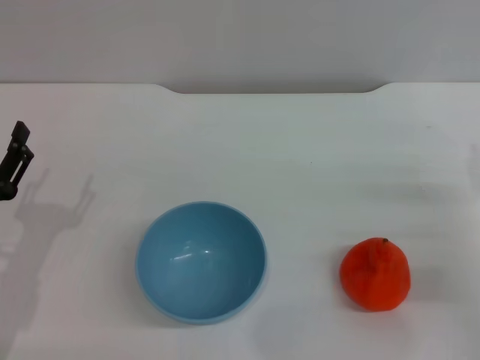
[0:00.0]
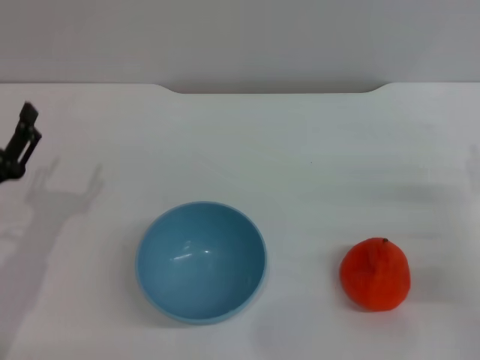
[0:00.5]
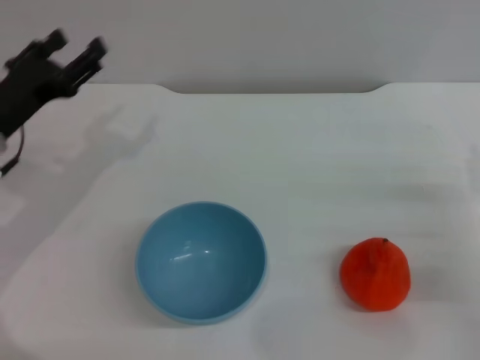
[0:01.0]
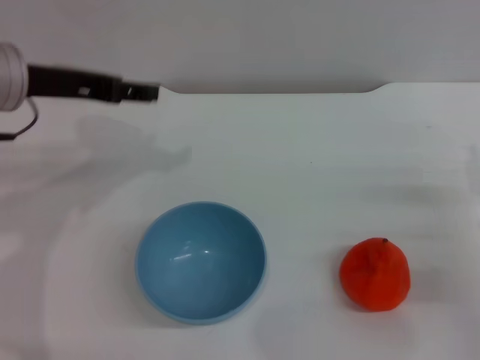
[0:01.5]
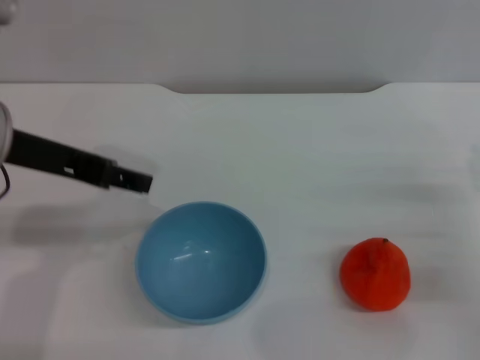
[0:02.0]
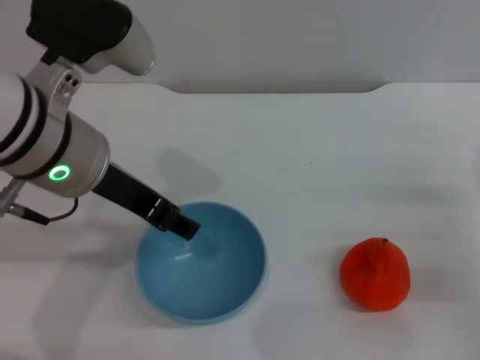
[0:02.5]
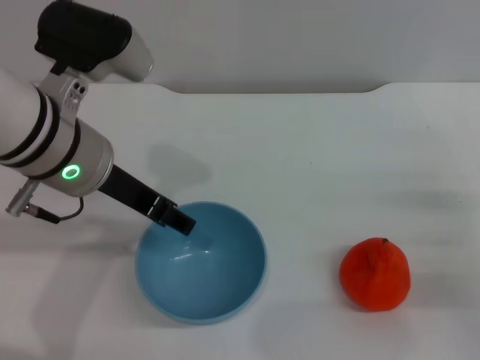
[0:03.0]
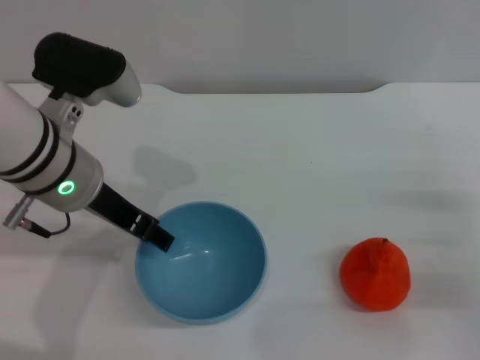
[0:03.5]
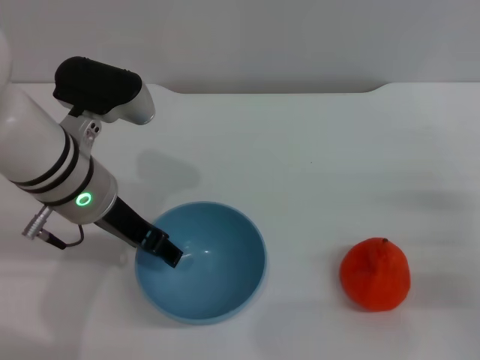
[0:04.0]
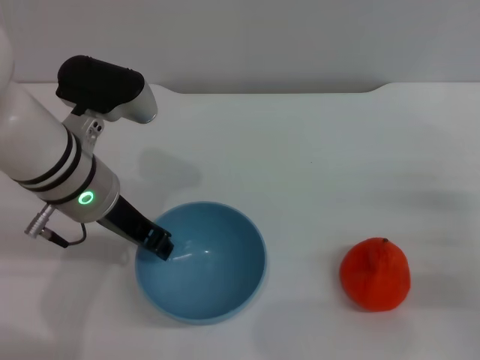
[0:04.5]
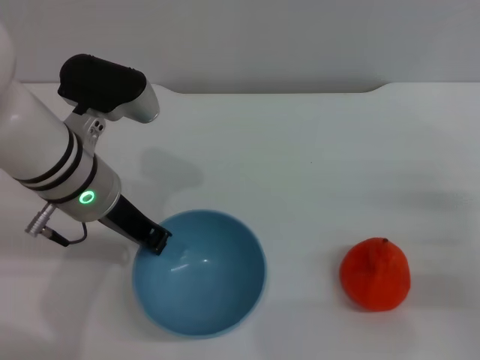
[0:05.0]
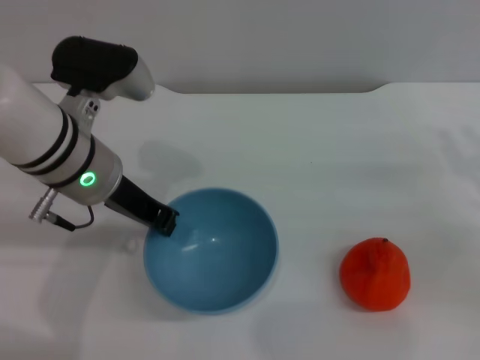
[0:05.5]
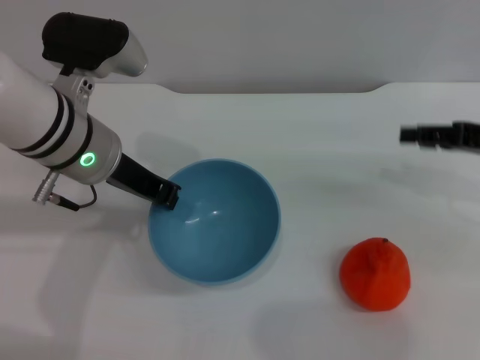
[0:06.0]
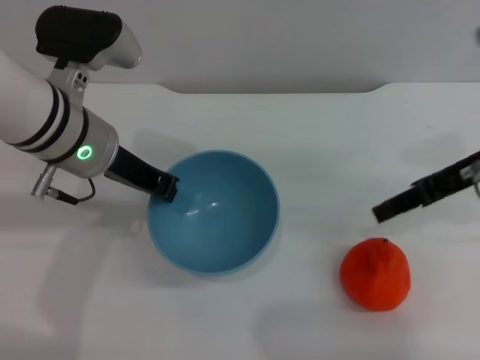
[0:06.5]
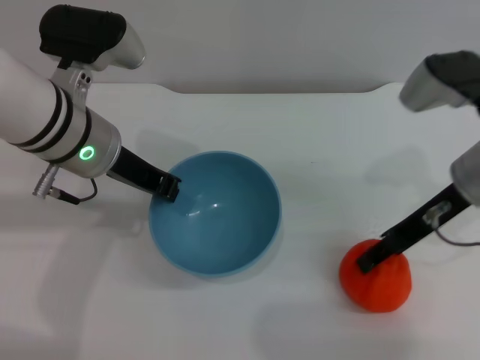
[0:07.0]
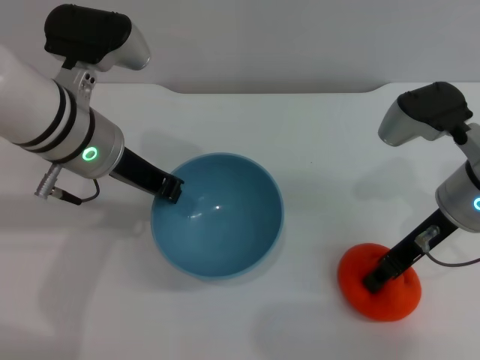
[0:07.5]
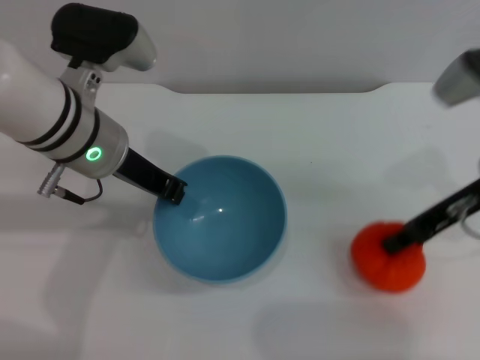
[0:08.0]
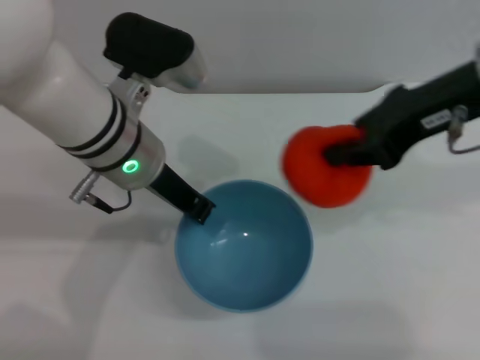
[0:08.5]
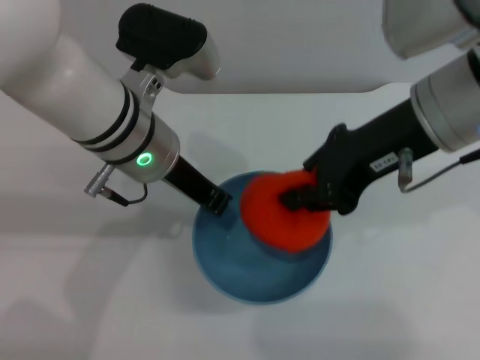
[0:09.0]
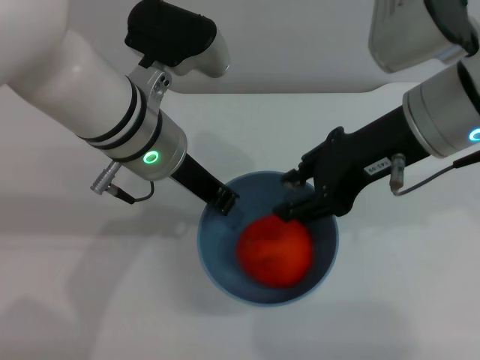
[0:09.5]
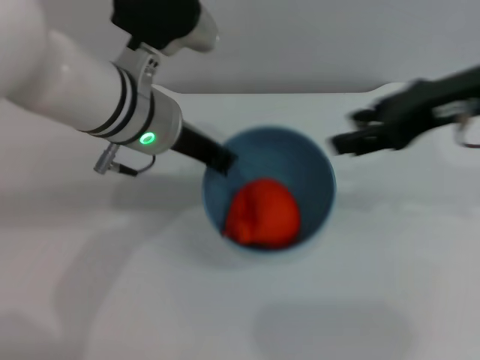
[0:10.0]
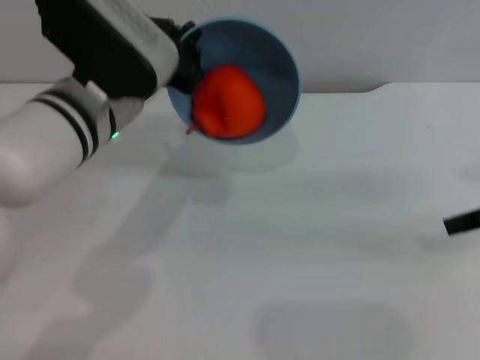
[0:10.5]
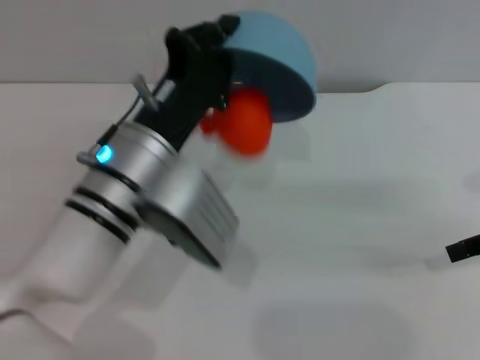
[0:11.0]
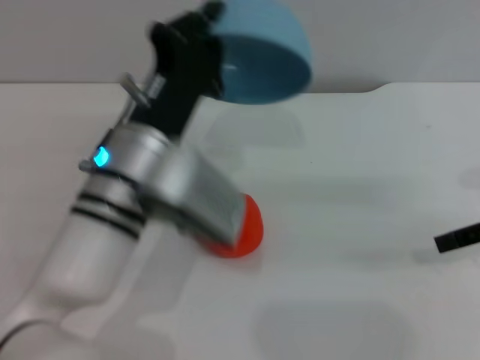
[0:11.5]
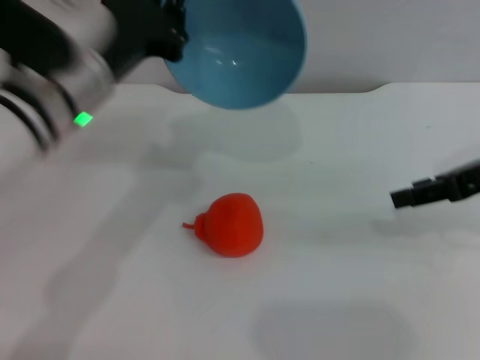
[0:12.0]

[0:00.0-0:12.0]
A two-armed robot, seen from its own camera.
Task of the whole recording: put the orange into the blue bowl and pour it out repeatedly.
Step, 0:00.0 to 0:06.0: Pick up the bowl with the left gripper.
Step, 0:06.5 to 0:08.0: Pick up the orange with the right gripper.
Step, 0:08.5 to 0:09.5: Place the orange into the bowl.
Step, 0:10.0 to 0:11.0: Pour the orange out of the bowl.
0:00.0 to 0:02.0: The left gripper goes about 20 cm upward and to the right.
0:02.0 to 0:04.0: The left gripper goes about 10 cm downward and to the right.
0:04.0 to 0:06.0: The right gripper goes about 15 cm upward and forward, while the left gripper closes.
0:06.0 to 0:08.0: The right gripper heads to the left, covering some 10 cm, and closes up.
0:08.0 to 0:10.0: The right gripper shifts approximately 10 cm upward, and opens.
0:10.0 to 0:12.0: The right gripper heads downward and to the right, covering some 10 cm.

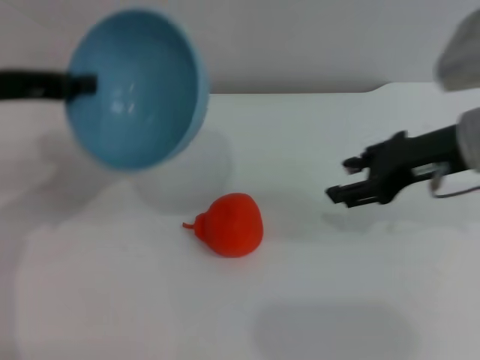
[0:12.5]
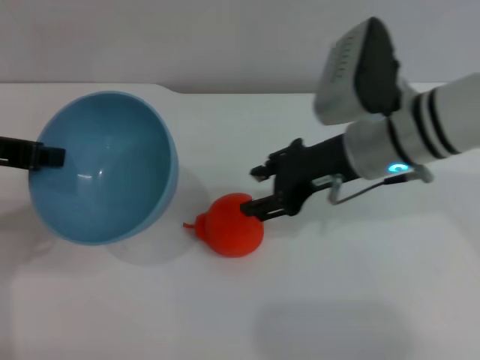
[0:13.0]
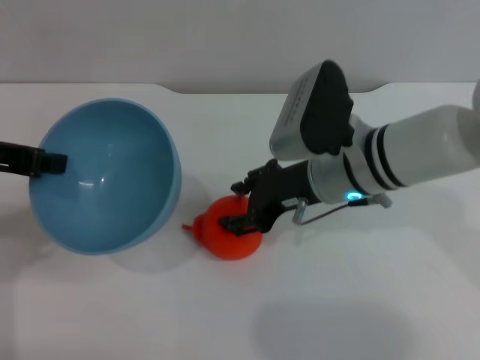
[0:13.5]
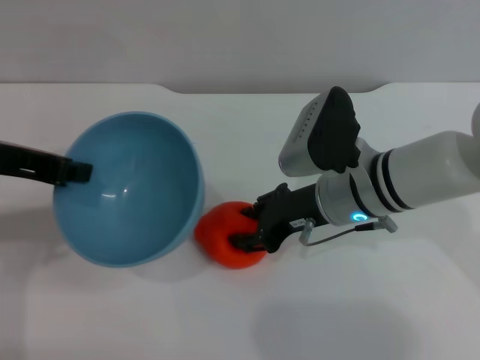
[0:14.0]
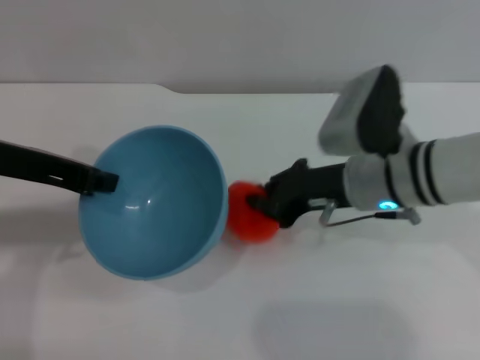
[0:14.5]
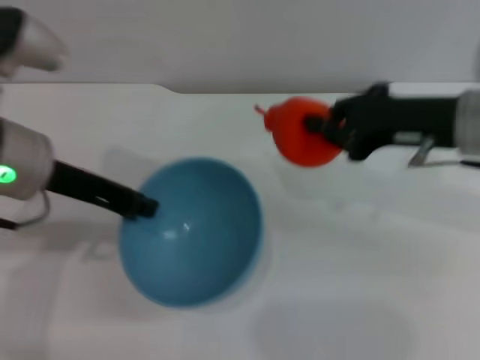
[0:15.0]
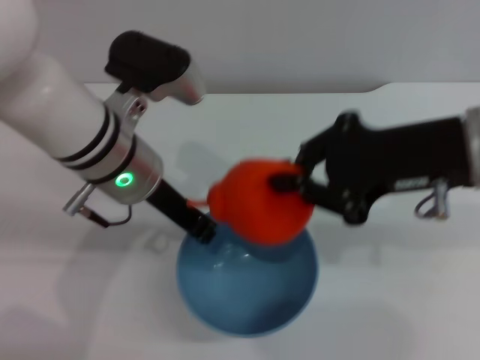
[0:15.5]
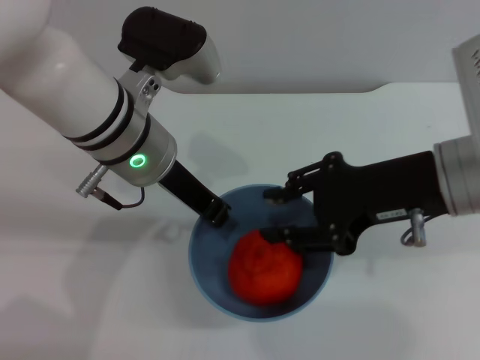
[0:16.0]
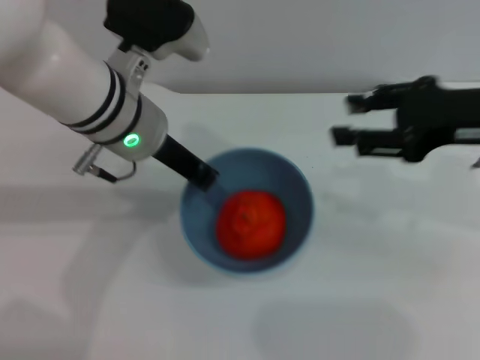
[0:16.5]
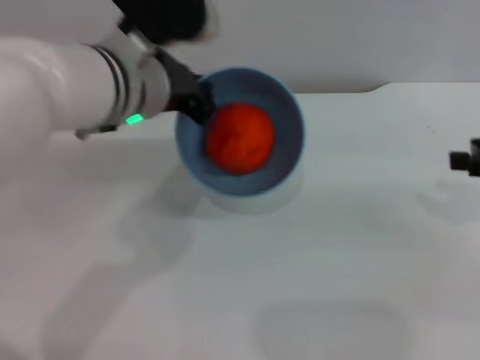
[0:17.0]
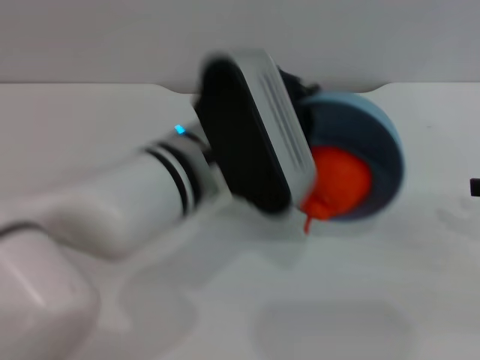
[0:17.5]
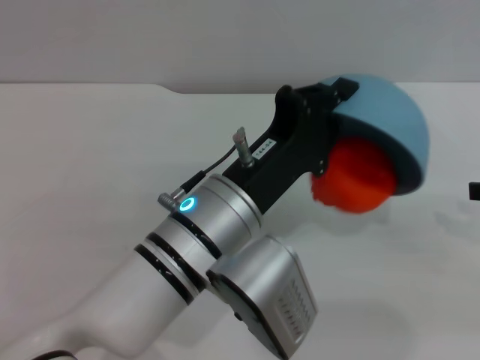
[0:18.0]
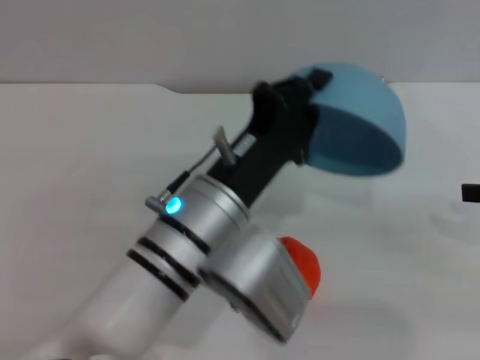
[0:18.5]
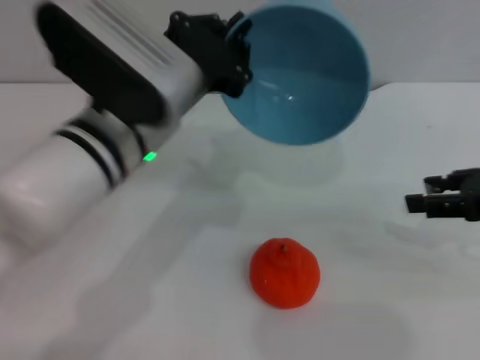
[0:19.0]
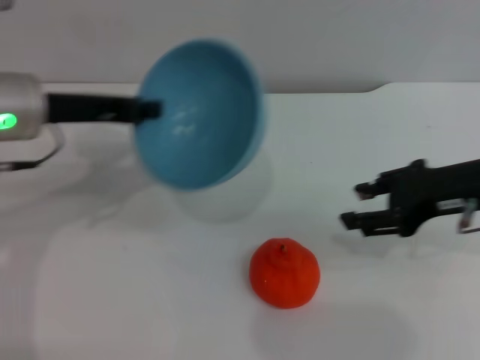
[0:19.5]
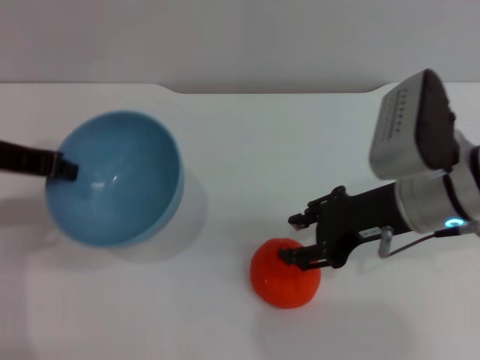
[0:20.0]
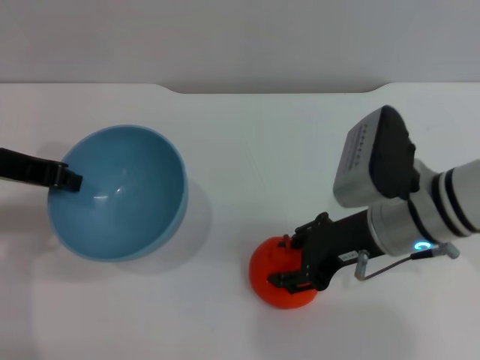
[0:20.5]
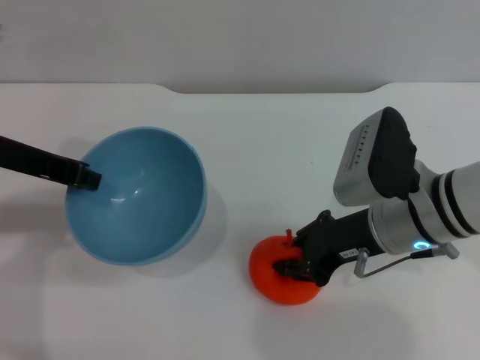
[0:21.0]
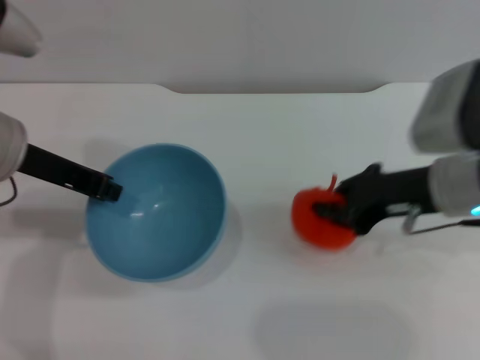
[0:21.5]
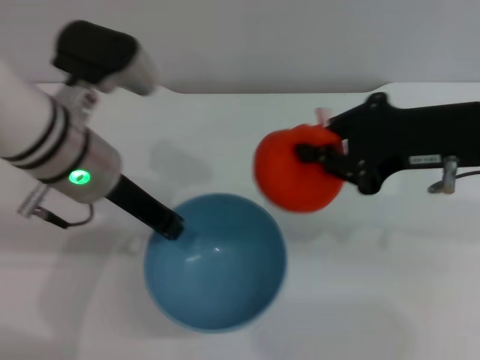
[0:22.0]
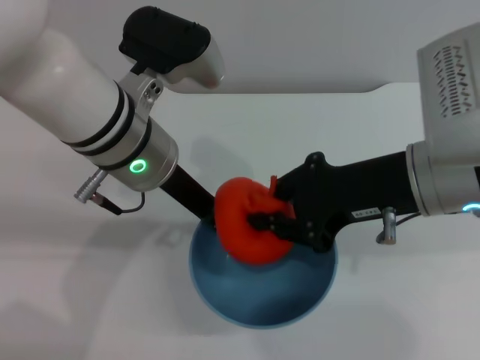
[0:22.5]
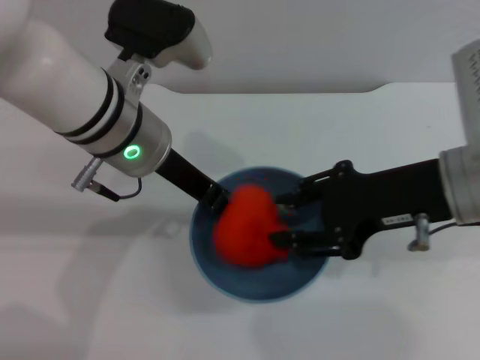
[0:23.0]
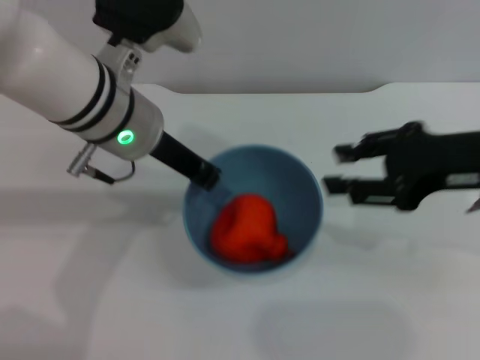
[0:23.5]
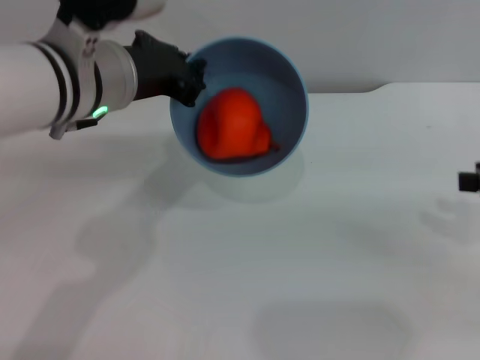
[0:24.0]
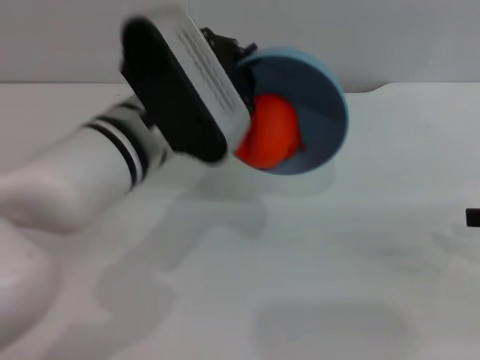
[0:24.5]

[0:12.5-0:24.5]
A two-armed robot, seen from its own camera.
Task of the whole recording: put the orange into the blue bowl and pour it out repeatedly.
Step, 0:12.5 to 0:14.5: Pick up the orange with the right gripper.
Step, 0:15.0 to 0:16.0: Place the orange into the bowl.
Step, 0:16.5 to 0:18.0: Pour the orange out of the bowl.
Step, 0:18.5 to 0:21.5: Pick up the orange with the right gripper.
Step, 0:22.0 to 0:23.0: Place the orange into the bowl.
0:12.5 to 0:14.5: The right gripper travels to the left and downward by about 10 cm, and closes its fingers.
0:14.5 to 0:16.5: The left gripper travels to the right and forward by approximately 15 cm, while the right gripper is displaced to the right and upward by some 15 cm, and opens up.
0:16.5 to 0:18.5: The right gripper is displaced to the right by some 10 cm. The left gripper is displaced backward, downward and to the right by roughly 15 cm.
0:18.5 to 0:20.5: Both grippers move to the left, about 20 cm.
0:20.5 to 0:22.5: The right gripper shifts some 10 cm upward, and closes its fingers. Meanwhile the left gripper travels to the right by about 15 cm.
0:22.5 to 0:24.5: The right gripper travels to the right by some 20 cm, and opens up.

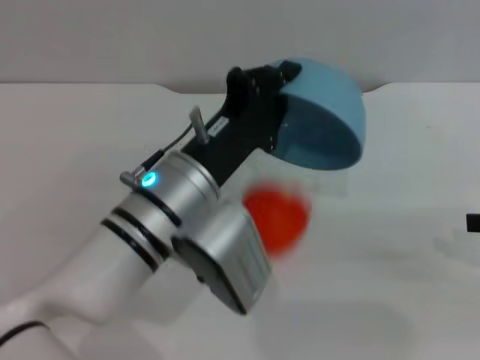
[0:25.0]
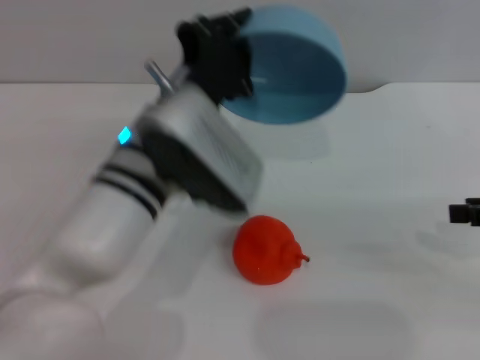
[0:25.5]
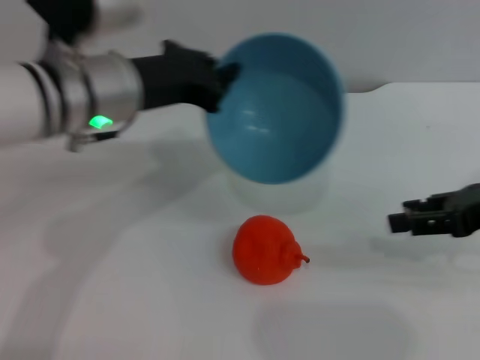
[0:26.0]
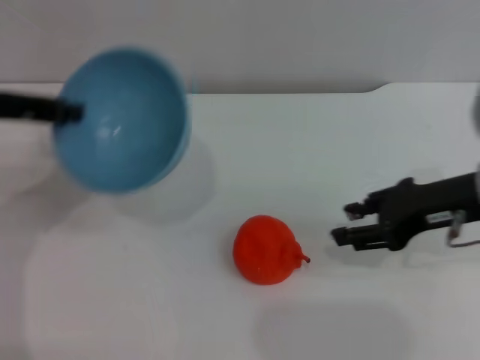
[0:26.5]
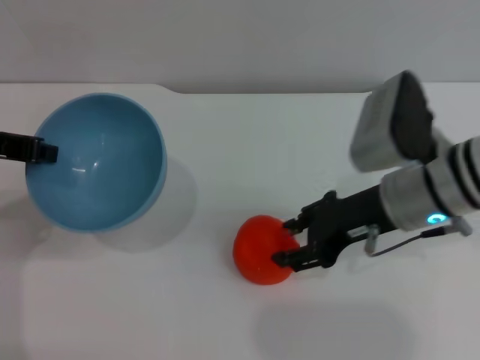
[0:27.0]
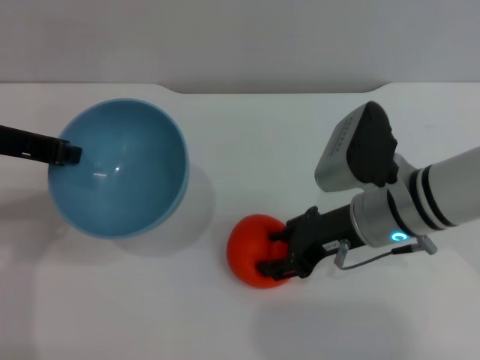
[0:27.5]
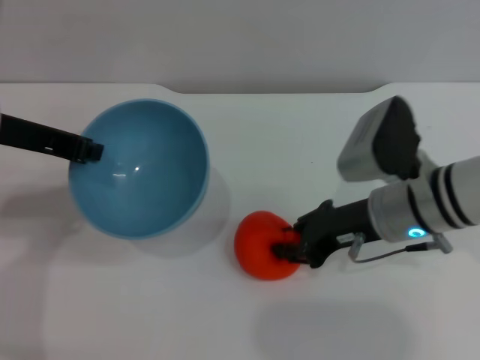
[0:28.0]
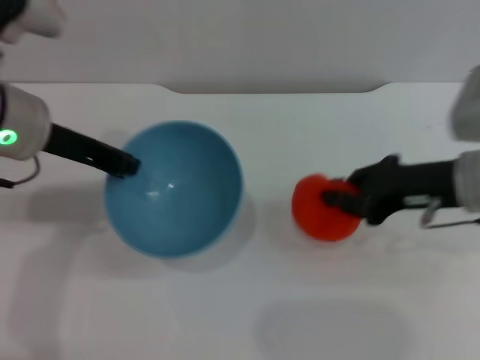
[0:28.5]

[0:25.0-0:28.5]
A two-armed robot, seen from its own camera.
Task of the whole recording: put the orange into the blue bowl and pour it out repeatedly.
0:25.0 to 0:27.0: The right gripper is displaced to the left by roughly 20 cm; the left gripper is displaced to the left and upward by roughly 25 cm.
0:27.0 to 0:28.5: Both grippers travel together to the right, some 5 cm. The right gripper closes.
